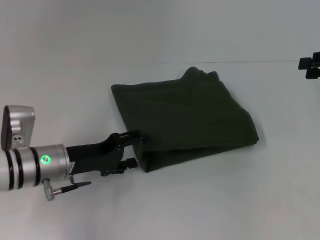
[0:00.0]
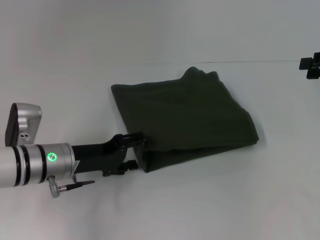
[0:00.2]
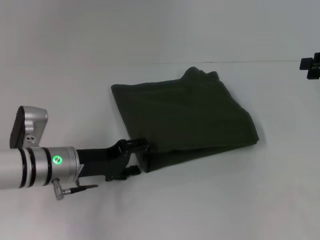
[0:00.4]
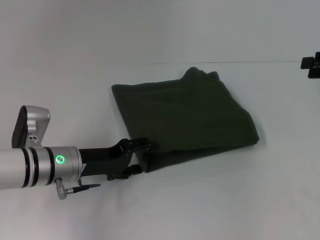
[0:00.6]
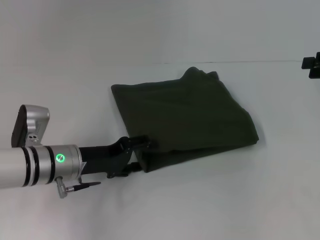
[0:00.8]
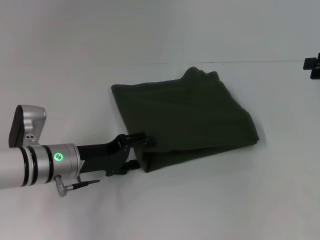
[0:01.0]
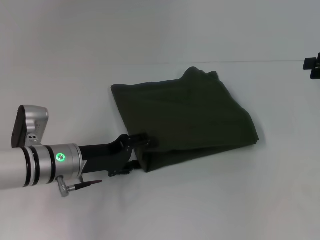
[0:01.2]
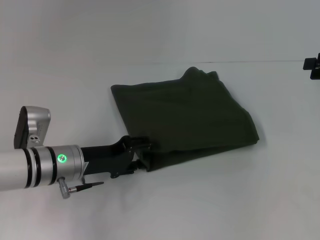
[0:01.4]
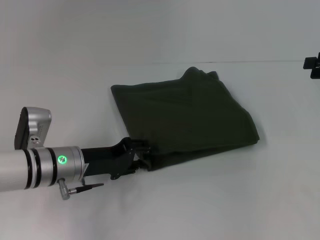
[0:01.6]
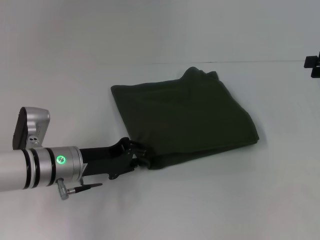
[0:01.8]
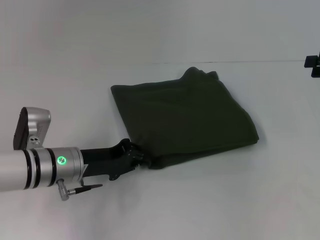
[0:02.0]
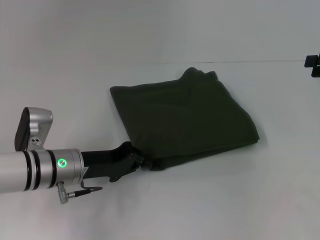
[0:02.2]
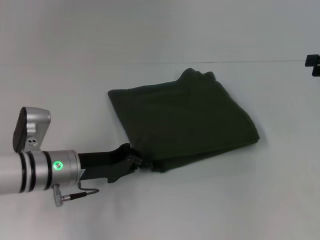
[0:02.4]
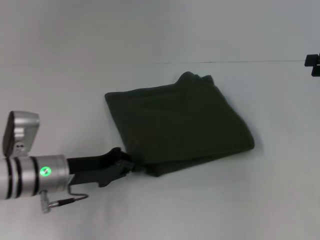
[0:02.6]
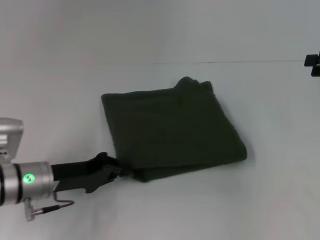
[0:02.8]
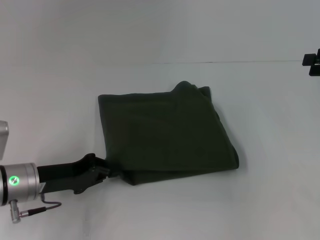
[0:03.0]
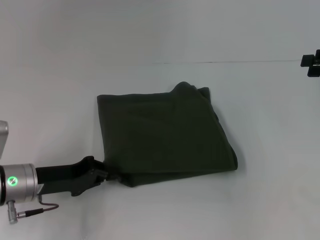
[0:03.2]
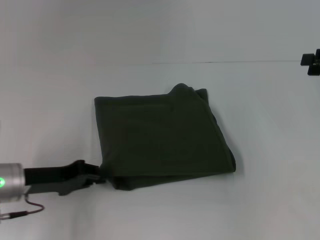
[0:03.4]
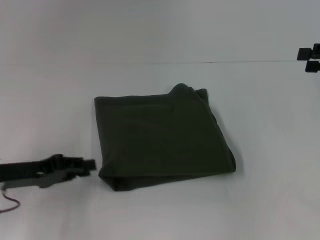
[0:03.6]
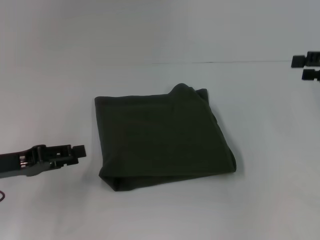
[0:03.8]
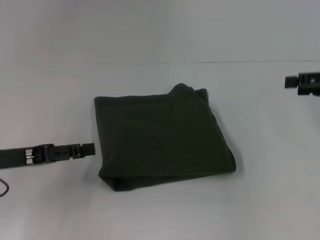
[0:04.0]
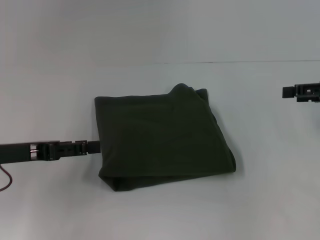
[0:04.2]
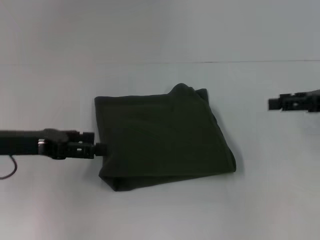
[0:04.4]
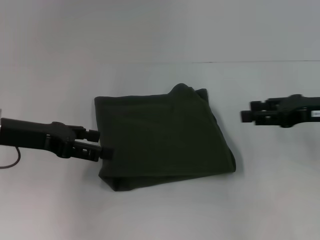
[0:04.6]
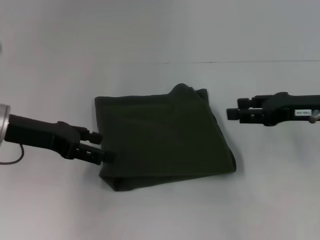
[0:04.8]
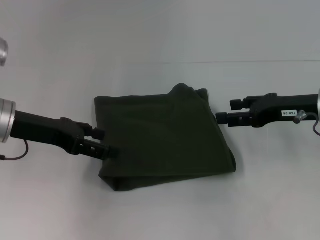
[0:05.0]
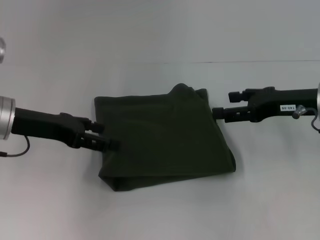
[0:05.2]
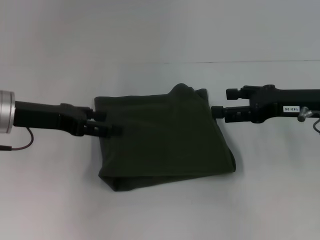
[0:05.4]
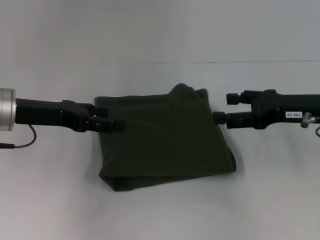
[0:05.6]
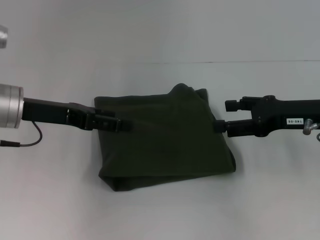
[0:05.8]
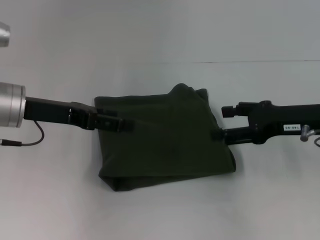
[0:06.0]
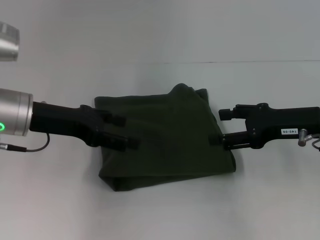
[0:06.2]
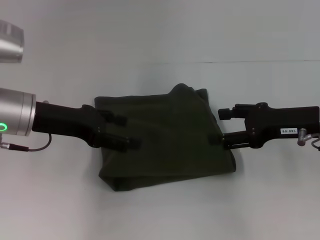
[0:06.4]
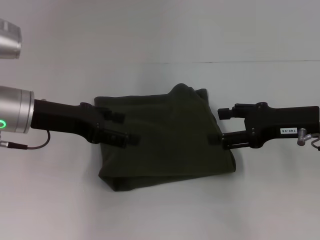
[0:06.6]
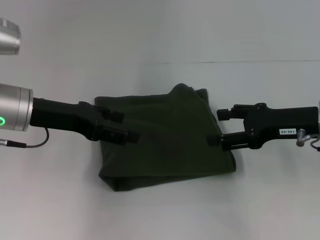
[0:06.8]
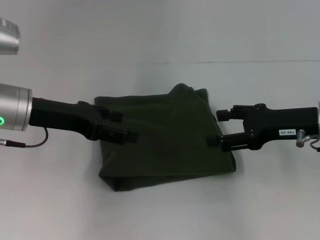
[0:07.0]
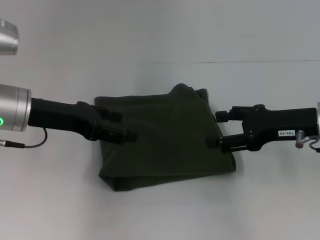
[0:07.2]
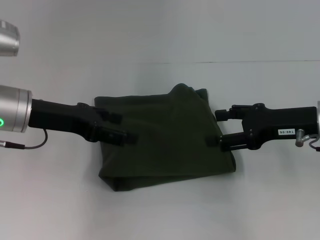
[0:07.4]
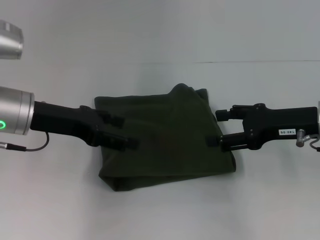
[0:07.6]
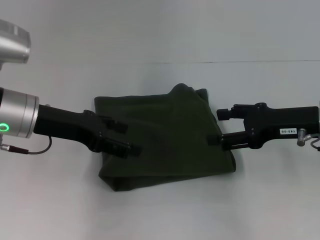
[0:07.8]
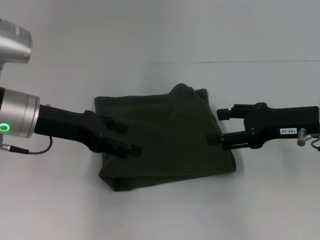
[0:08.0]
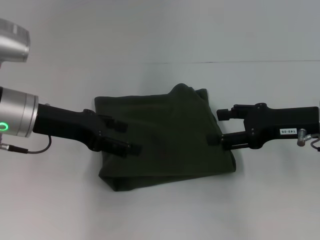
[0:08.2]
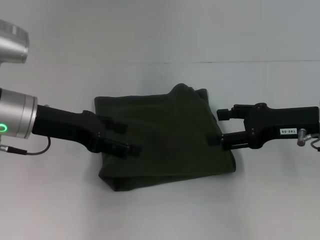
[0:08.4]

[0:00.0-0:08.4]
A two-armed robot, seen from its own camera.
0:00.0 to 0:01.4: There are only small adjustments of the grippers.
0:01.4 to 0:02.8: The left gripper moves about 5 cm, and closes up.
0:02.8 to 0:04.2: The left gripper is displaced upward and to the left by roughly 10 cm, and opens up. Meanwhile the right gripper opens up.
0:04.2 to 0:05.6: The left gripper travels forward by about 5 cm; the right gripper shifts roughly 10 cm to the left.
0:05.6 to 0:07.0: The grippers stay close to where they were, moving slightly.
0:07.0 to 0:08.4: Both grippers stay put.
